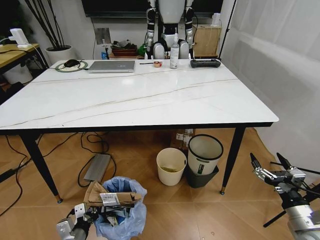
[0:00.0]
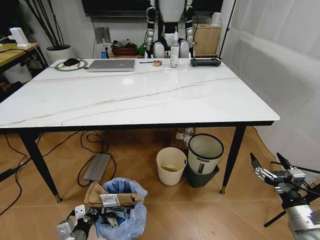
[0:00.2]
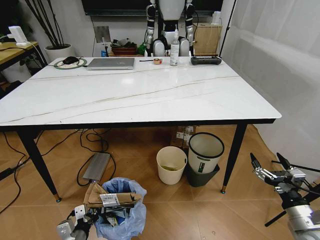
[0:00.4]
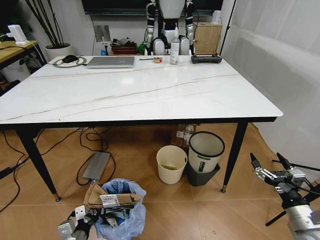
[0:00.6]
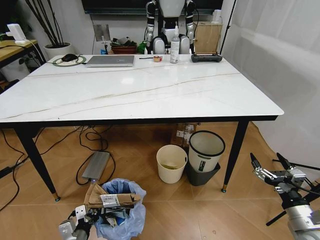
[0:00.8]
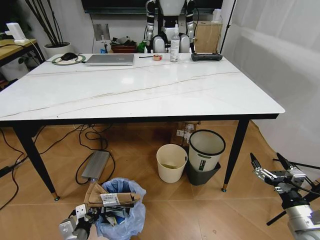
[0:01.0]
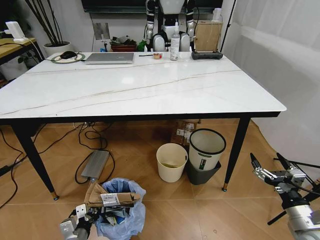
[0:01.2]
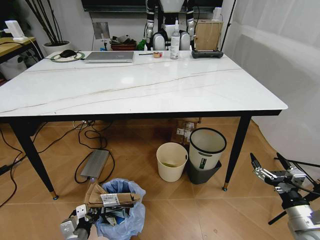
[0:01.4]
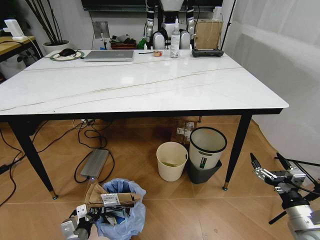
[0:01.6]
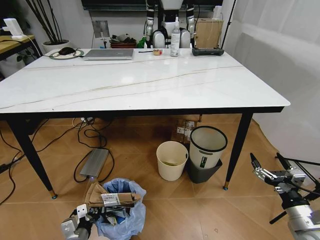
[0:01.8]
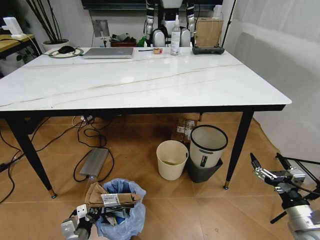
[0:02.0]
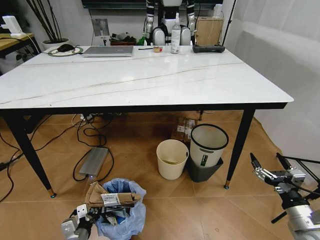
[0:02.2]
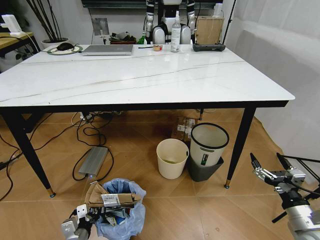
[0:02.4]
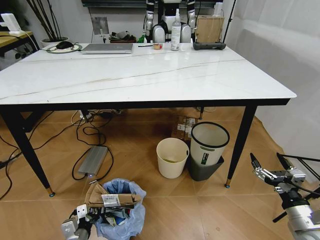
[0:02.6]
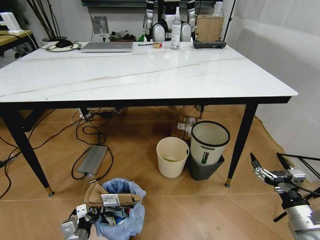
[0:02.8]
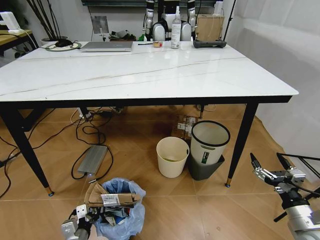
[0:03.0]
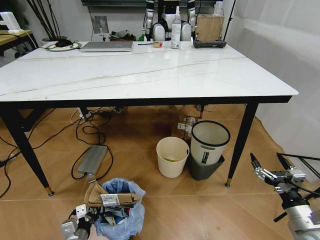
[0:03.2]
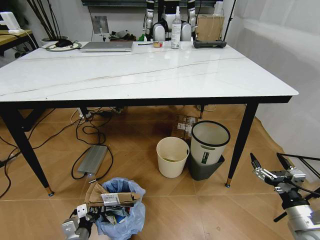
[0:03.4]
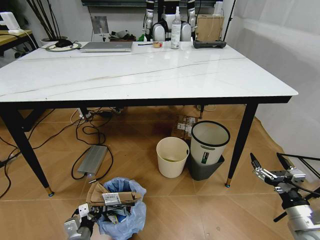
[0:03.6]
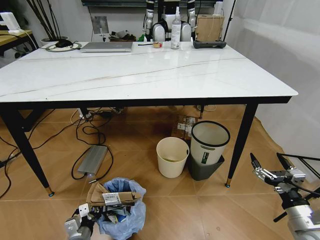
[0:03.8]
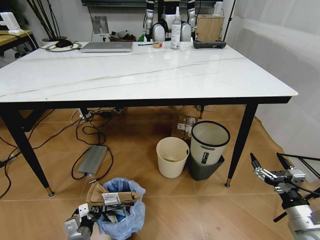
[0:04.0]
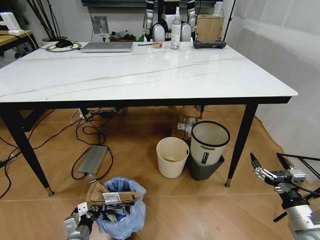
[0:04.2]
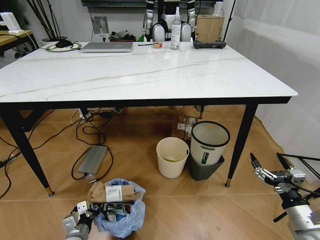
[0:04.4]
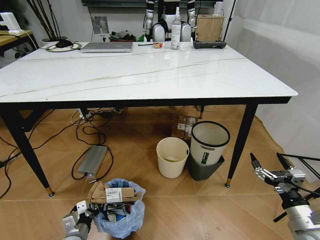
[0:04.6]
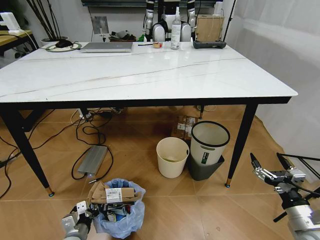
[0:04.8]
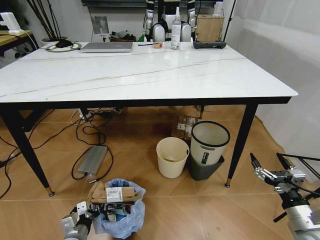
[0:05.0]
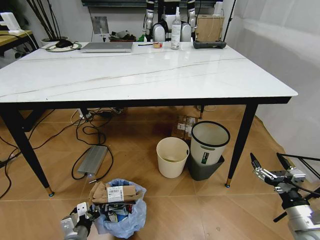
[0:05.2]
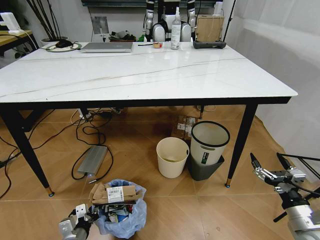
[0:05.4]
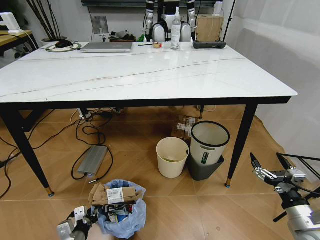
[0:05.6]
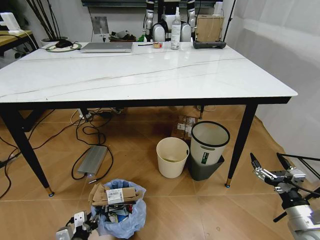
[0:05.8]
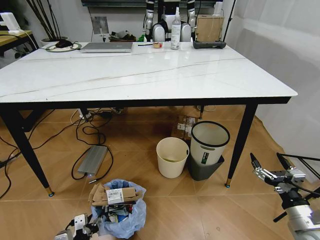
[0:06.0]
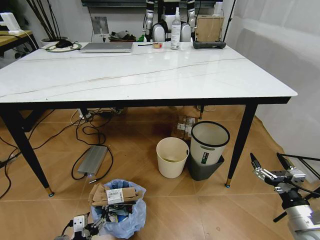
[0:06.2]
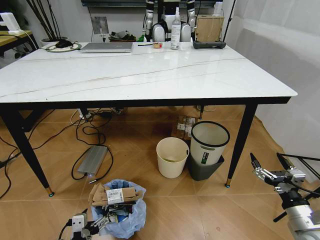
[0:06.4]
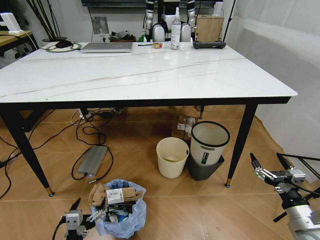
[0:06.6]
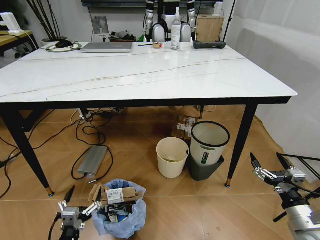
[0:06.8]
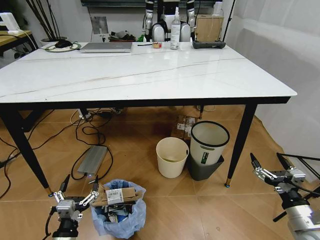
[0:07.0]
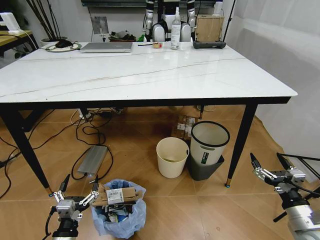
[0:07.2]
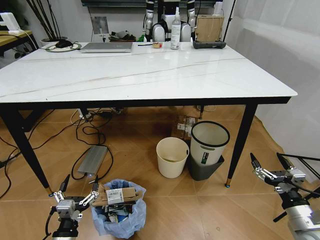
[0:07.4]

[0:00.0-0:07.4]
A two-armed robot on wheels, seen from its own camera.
Task of the whole recording: Pick up the trash bin and place the trash from the table into it.
0:03.0 to 0:04.4: There are only small adjustments of the grippers.
0:04.4 to 0:06.0: The left gripper goes some 10 cm backward and upward, and opens.
0:06.0 to 0:07.4: The left gripper opens up.
